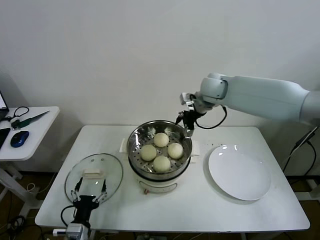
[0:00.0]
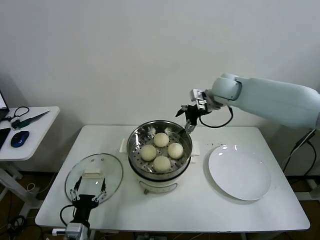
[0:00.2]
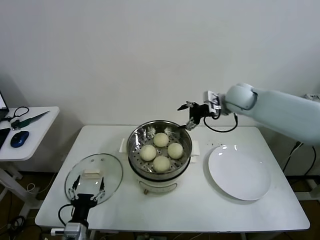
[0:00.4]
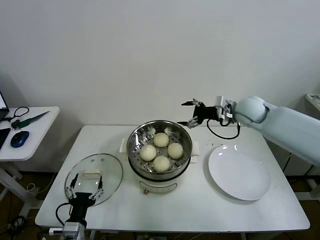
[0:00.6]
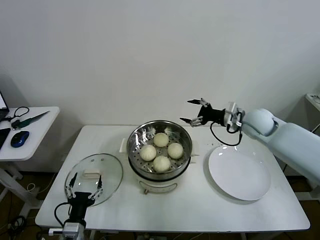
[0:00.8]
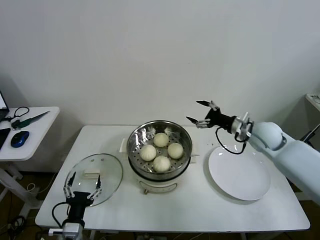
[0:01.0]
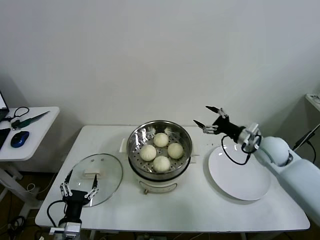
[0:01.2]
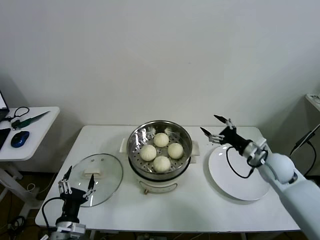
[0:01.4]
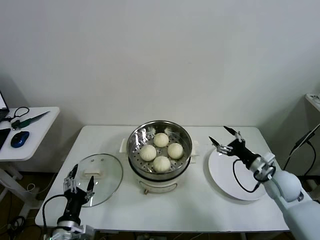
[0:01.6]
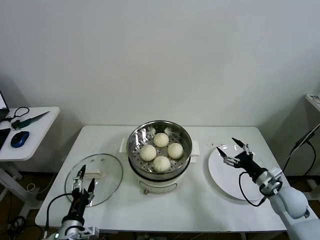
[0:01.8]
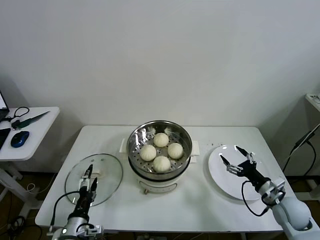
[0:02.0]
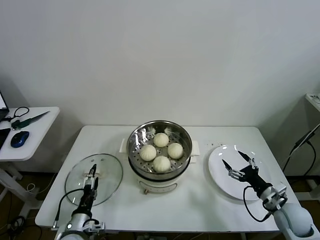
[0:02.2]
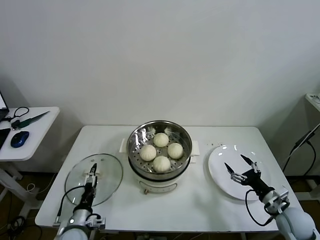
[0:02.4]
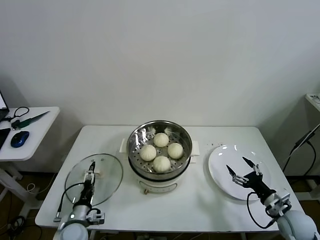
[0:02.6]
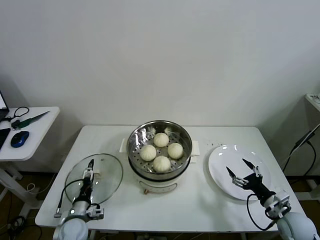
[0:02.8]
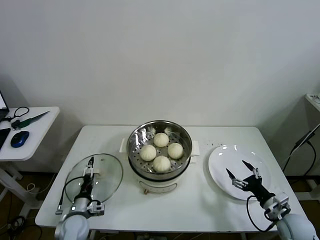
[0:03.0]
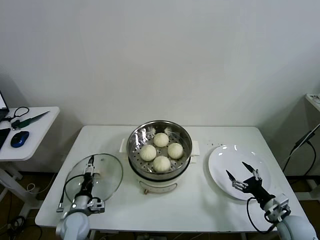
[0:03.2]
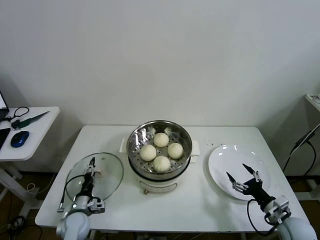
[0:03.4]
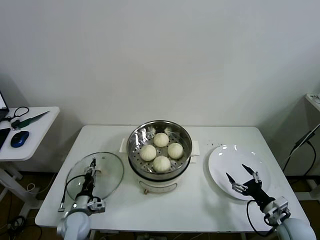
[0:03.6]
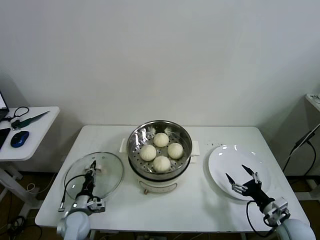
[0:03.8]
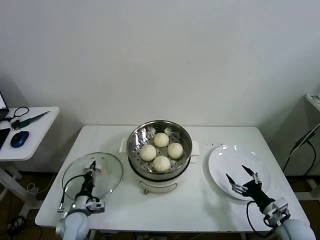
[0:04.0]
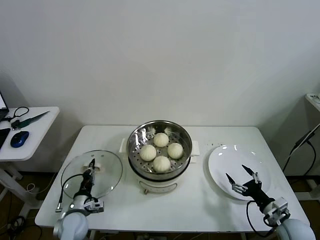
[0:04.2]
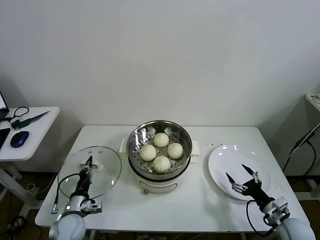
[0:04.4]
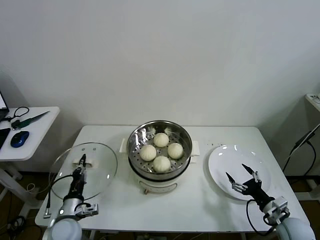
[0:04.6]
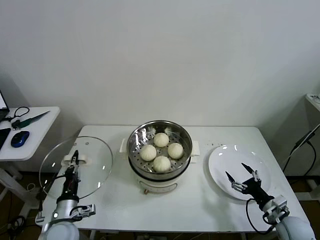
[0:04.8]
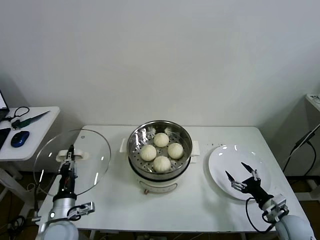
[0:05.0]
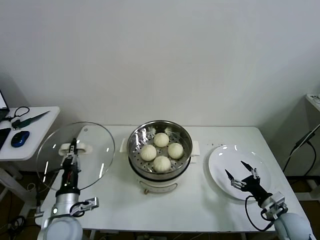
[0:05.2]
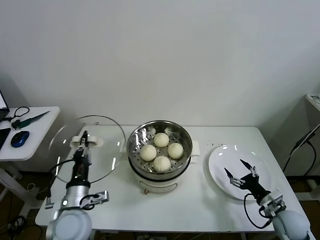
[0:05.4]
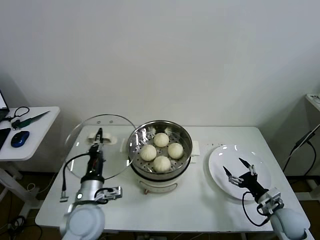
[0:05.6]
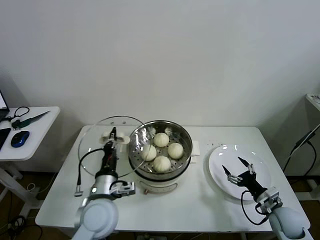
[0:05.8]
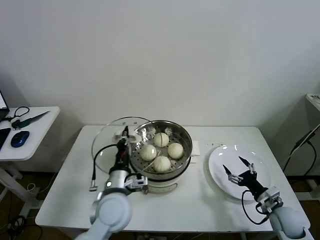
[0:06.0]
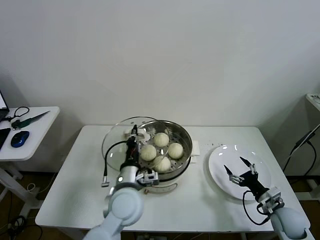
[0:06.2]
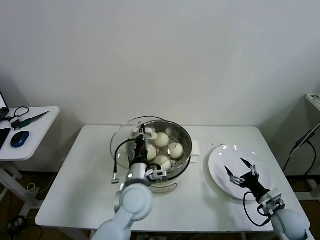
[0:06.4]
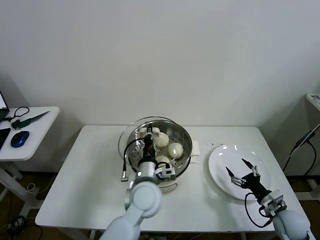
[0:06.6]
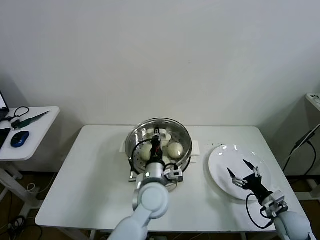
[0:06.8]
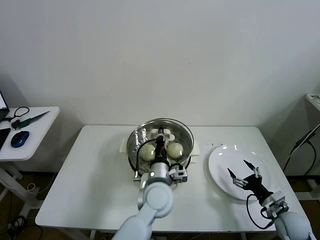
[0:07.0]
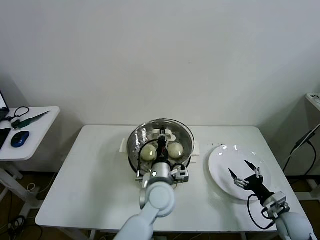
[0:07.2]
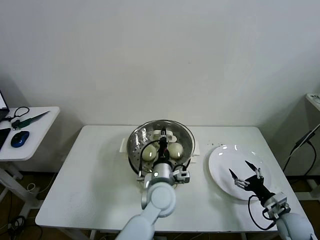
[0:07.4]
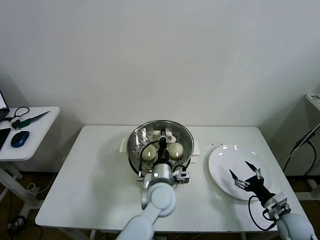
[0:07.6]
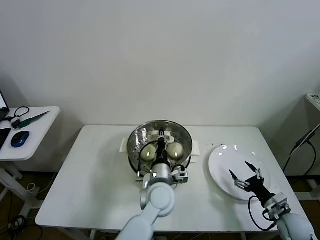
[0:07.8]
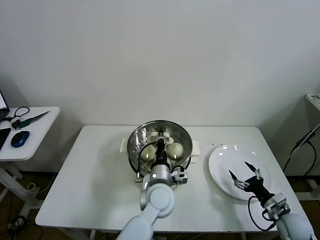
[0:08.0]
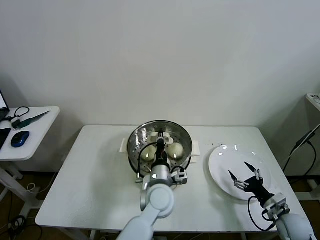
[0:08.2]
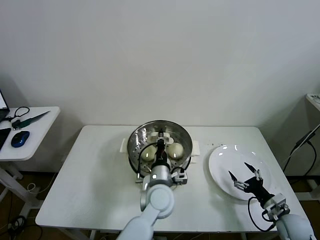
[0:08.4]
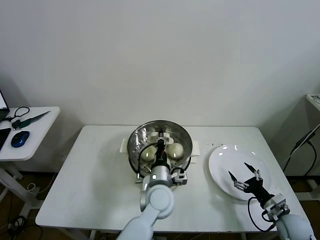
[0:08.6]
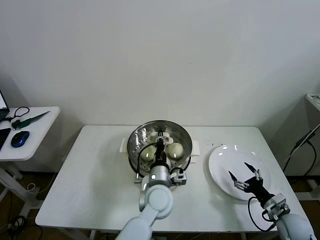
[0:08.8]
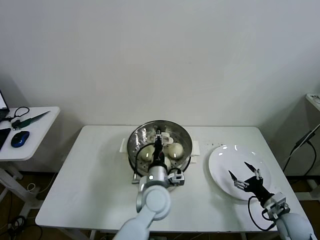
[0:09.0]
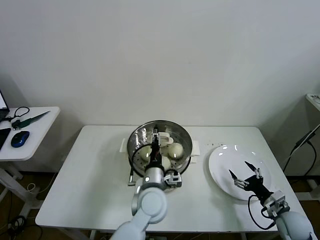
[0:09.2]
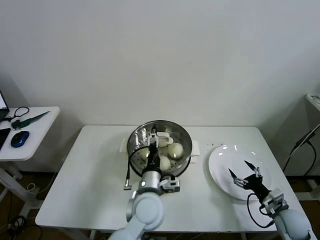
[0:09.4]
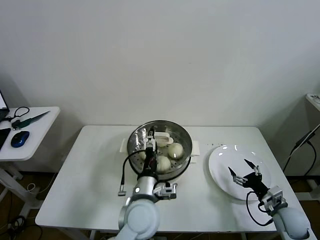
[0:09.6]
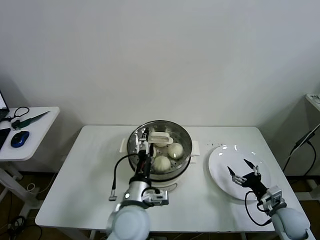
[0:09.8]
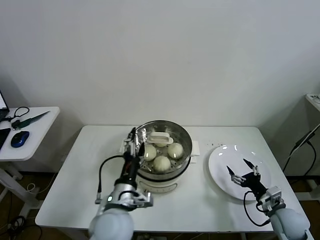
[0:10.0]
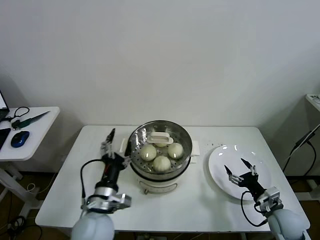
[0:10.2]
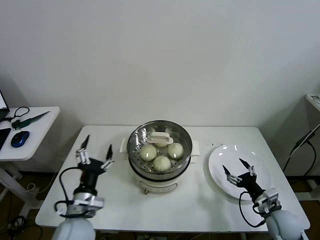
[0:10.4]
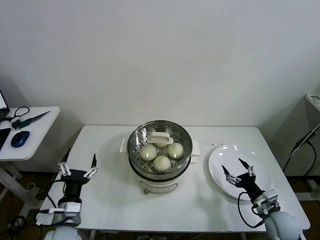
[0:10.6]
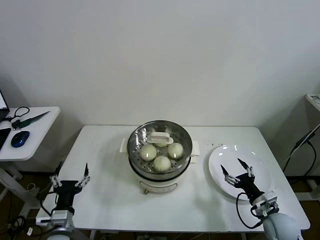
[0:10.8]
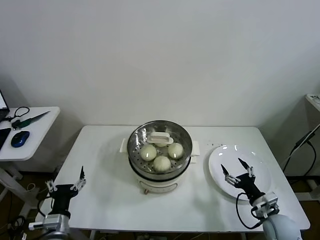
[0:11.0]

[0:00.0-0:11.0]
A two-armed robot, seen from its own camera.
Task of the whole recording: take steamed baozi put them in steamer then cover it.
Step, 0:00.0 to 0:03.8: Grasp the pot lid with left gripper.
Step, 0:04.0 to 0:09.4: Place the pot lid on the steamer with left gripper.
0:00.0 to 0:01.6: The right gripper moves downward, backward and to the right, about 40 cm.
0:01.6 to 0:03.2: The right gripper moves backward and downward, about 15 cm; the left gripper travels forward and downward by about 15 cm.
0:03.2 to 0:04.8: The left gripper is displaced upward by about 10 cm, and closes.
0:04.8 to 0:06.2: The left gripper moves to the right and upward, approximately 20 cm.
0:06.2 to 0:07.8: The left gripper heads to the right, covering some 10 cm.
0:07.8 to 0:09.4: The left gripper opens.
0:09.4 to 0:11.0: The right gripper heads to the left, covering some 5 cm. Meanwhile the left gripper heads to the left, covering some 25 cm.
